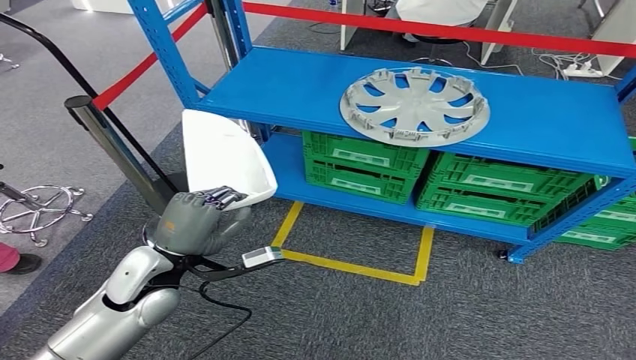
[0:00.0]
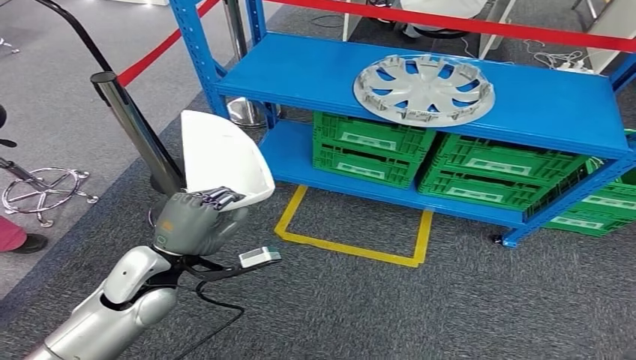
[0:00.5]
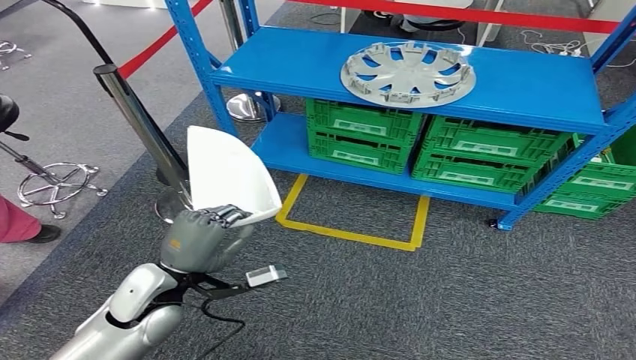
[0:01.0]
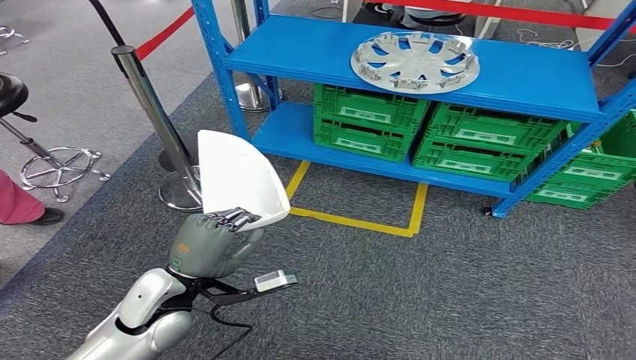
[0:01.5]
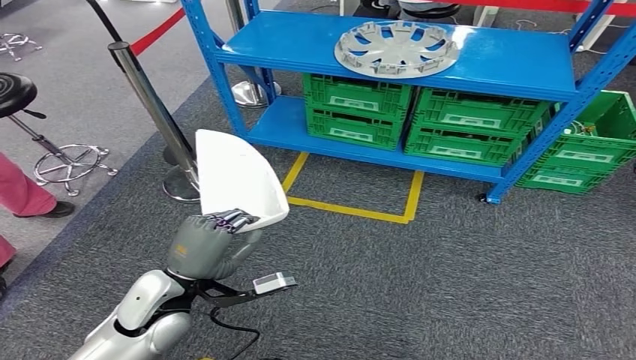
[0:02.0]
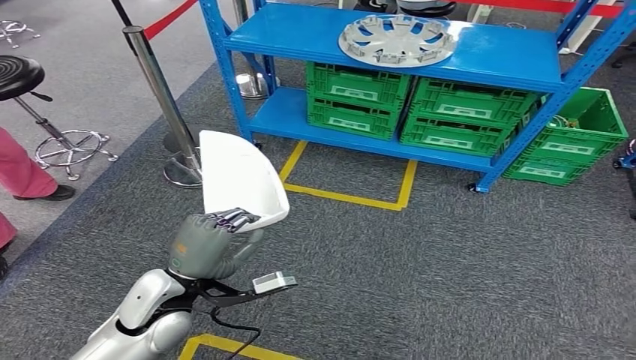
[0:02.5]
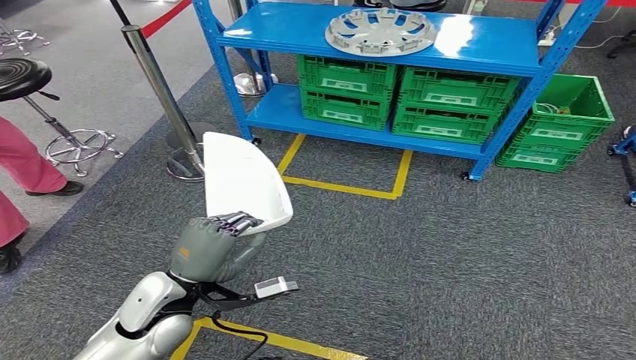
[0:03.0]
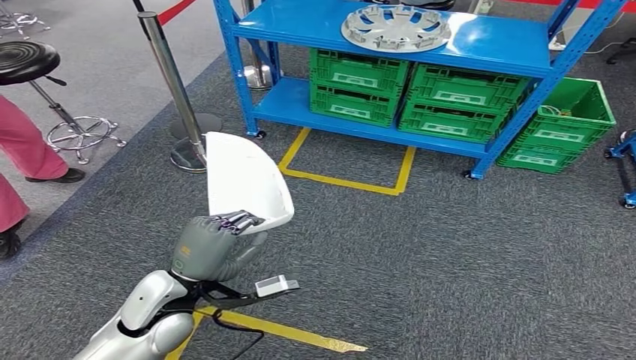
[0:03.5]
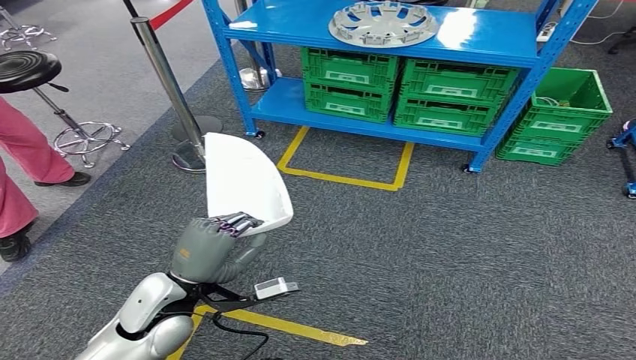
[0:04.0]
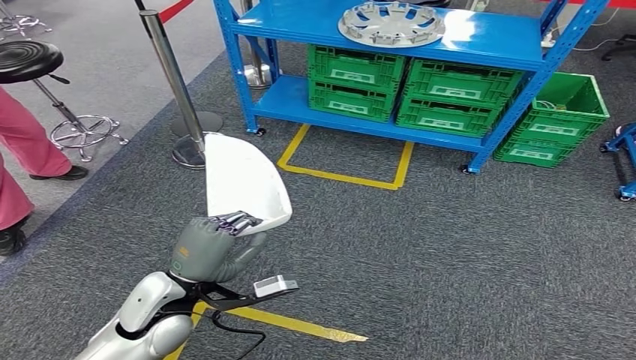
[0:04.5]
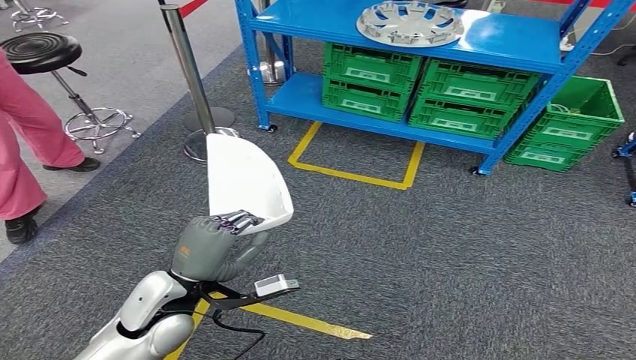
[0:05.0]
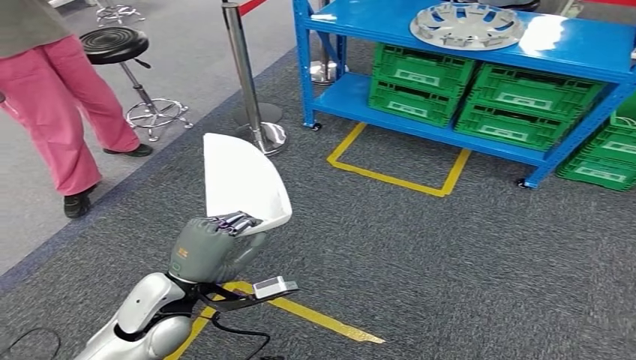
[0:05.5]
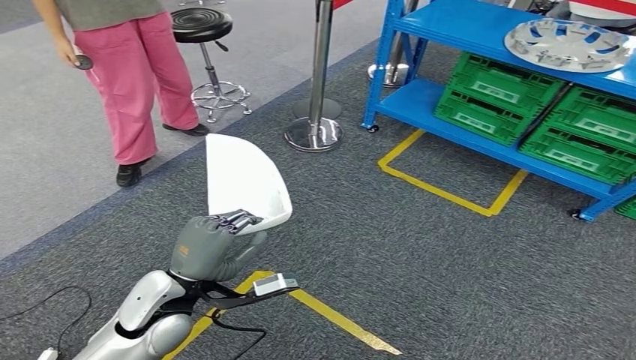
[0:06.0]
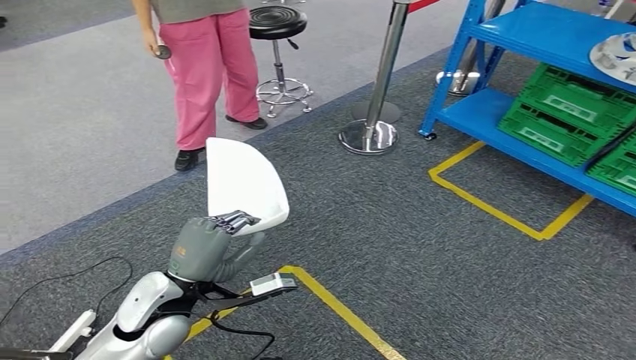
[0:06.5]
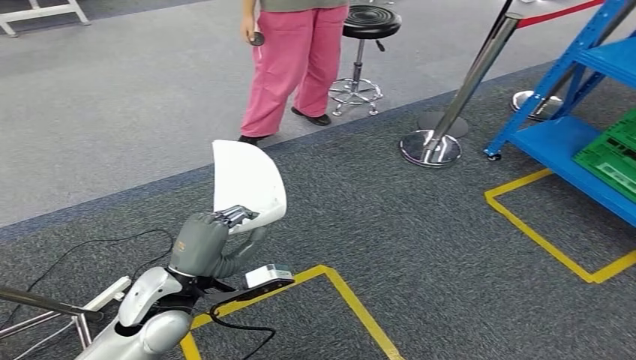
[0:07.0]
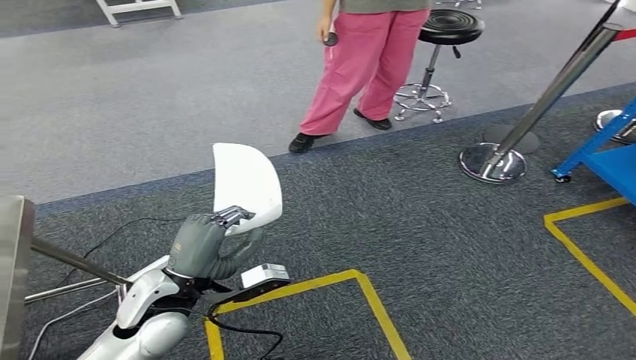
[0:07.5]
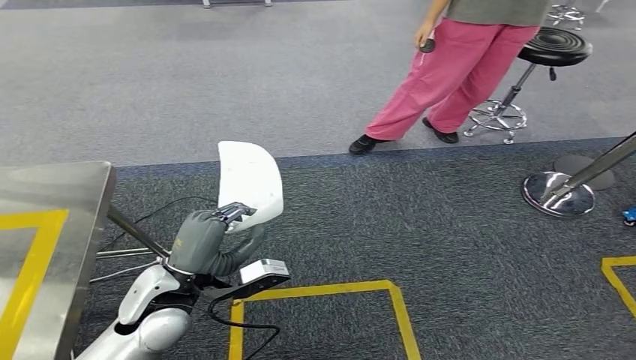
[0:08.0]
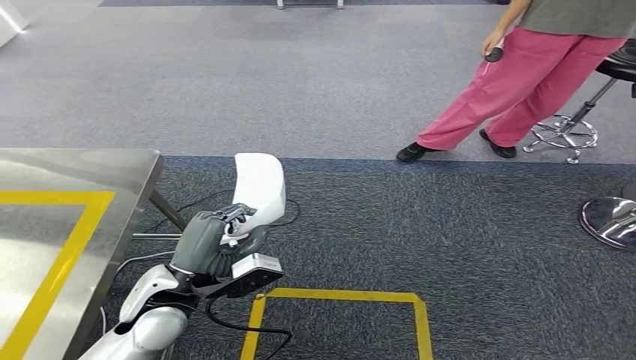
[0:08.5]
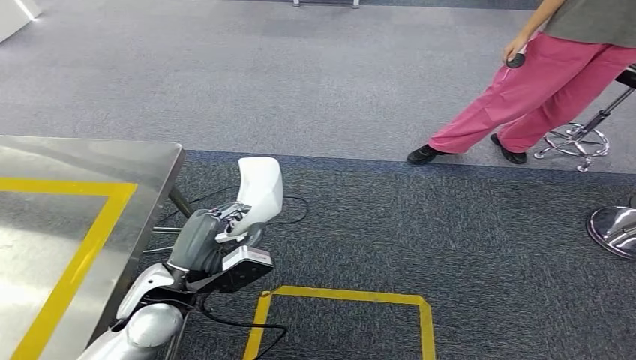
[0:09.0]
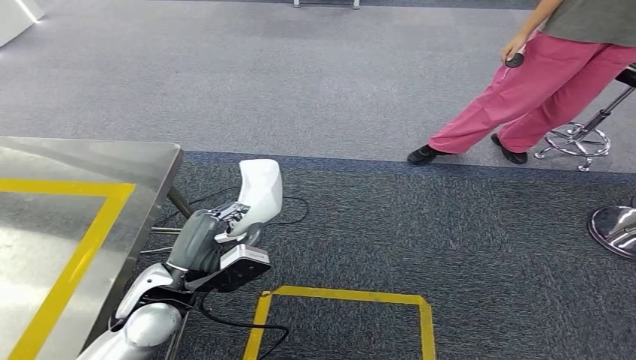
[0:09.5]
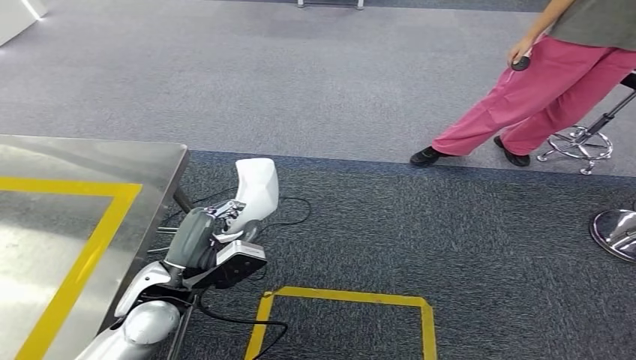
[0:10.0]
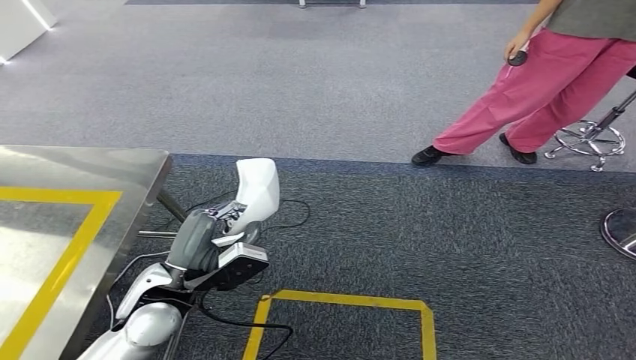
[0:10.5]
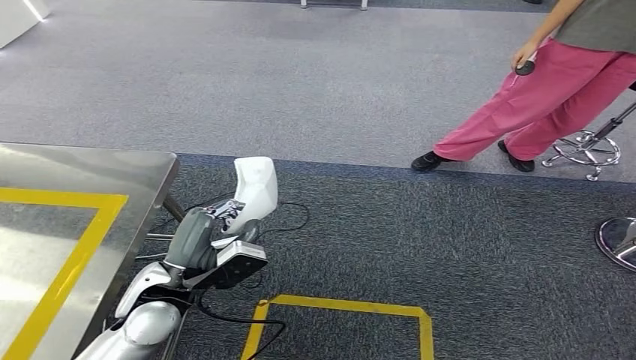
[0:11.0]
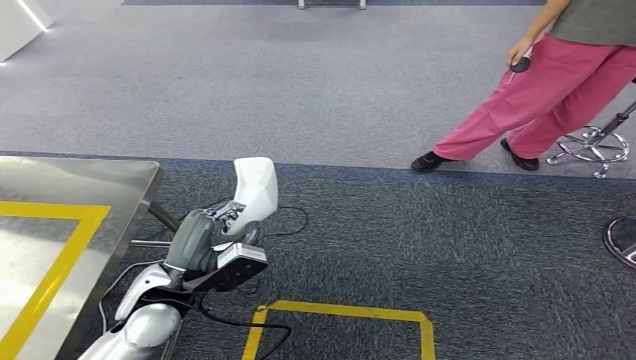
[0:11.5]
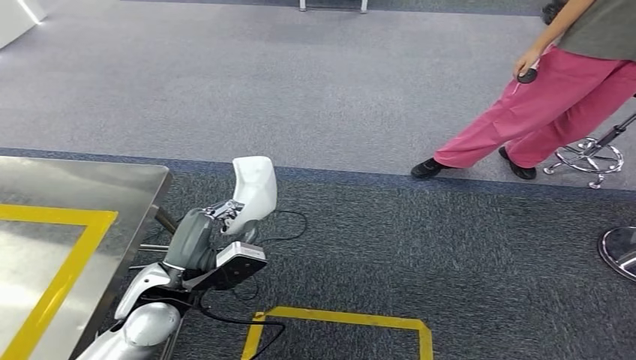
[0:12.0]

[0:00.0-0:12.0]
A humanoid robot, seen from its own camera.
0:10.0 to 0:12.0: Both hands stay about where they are.

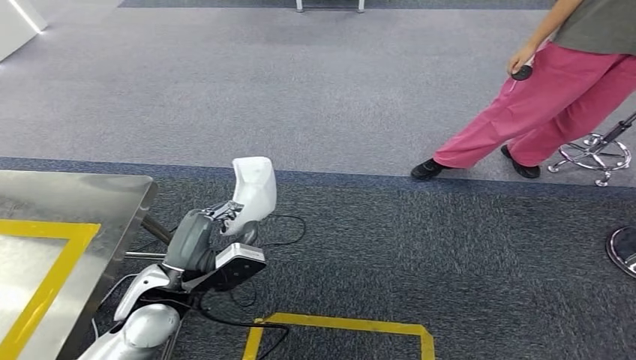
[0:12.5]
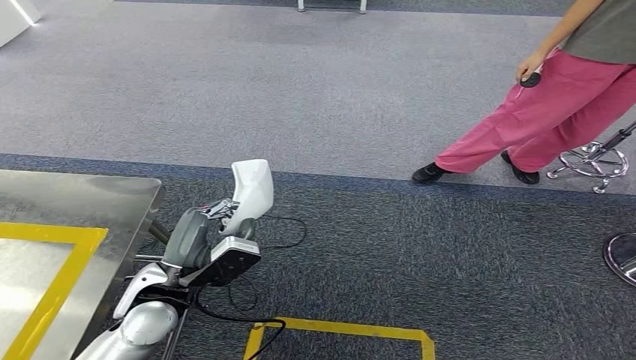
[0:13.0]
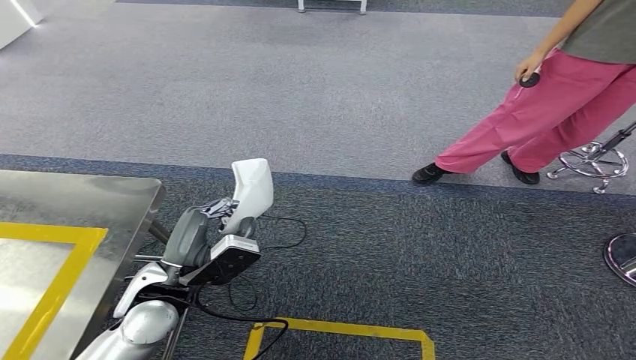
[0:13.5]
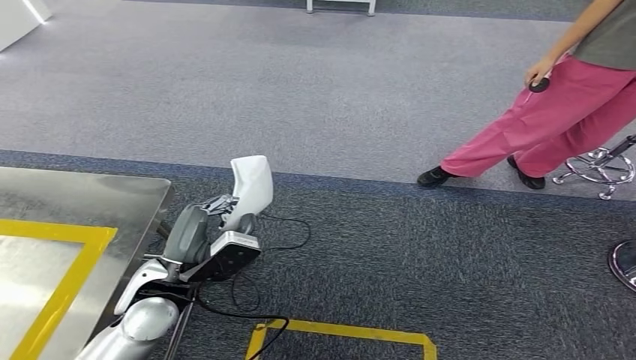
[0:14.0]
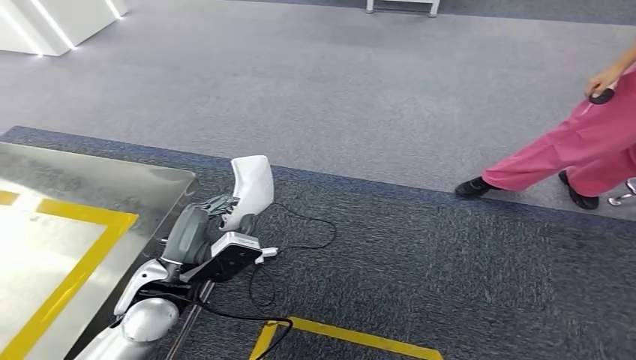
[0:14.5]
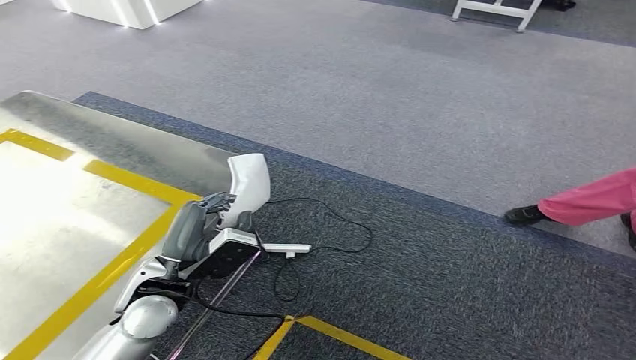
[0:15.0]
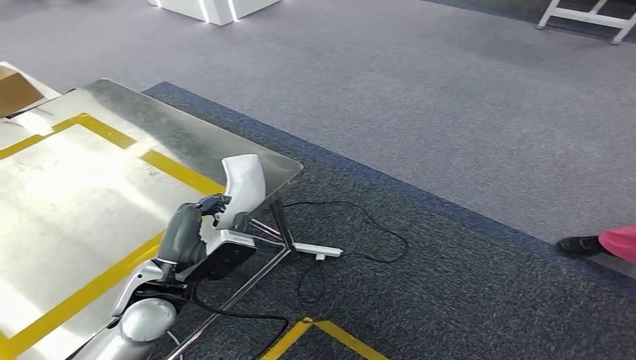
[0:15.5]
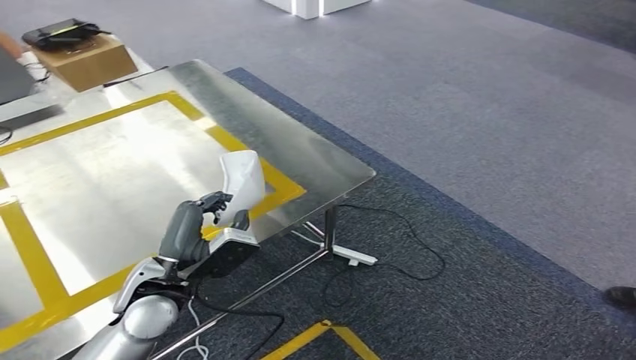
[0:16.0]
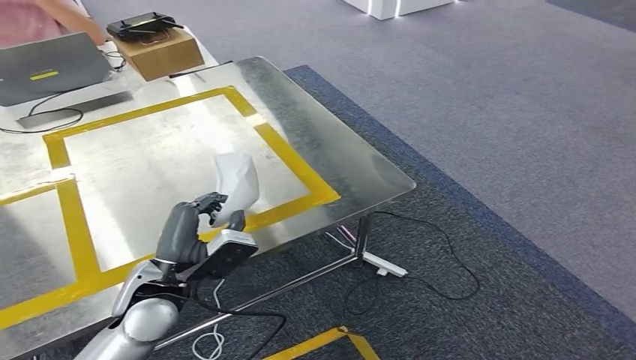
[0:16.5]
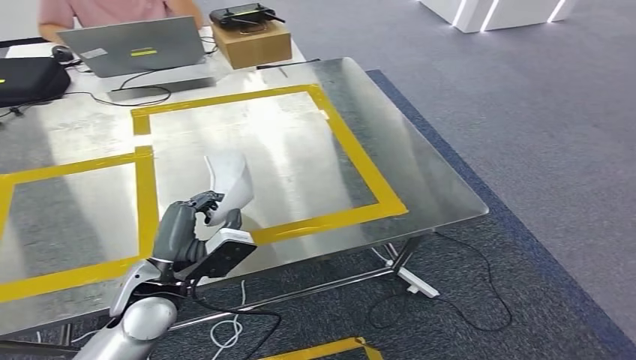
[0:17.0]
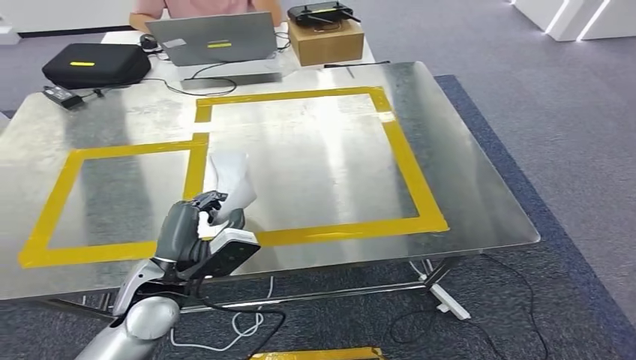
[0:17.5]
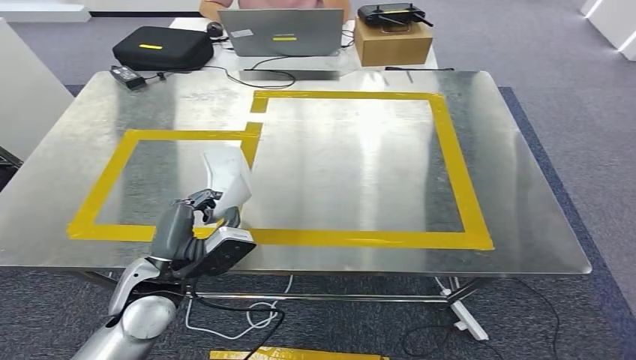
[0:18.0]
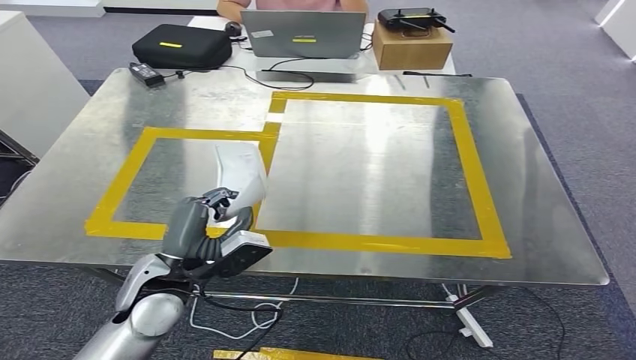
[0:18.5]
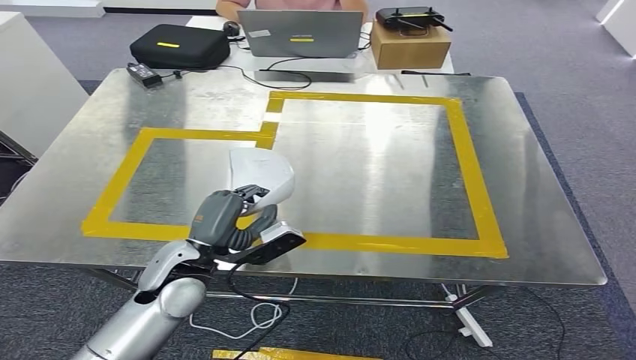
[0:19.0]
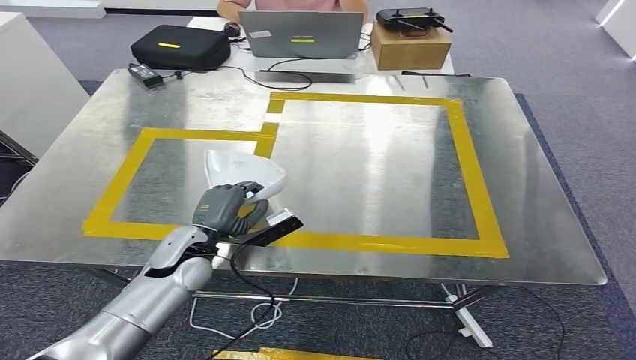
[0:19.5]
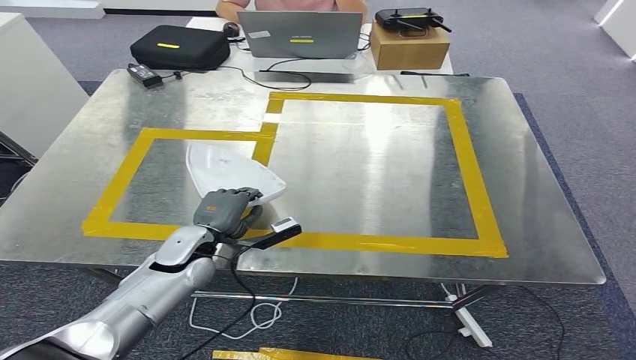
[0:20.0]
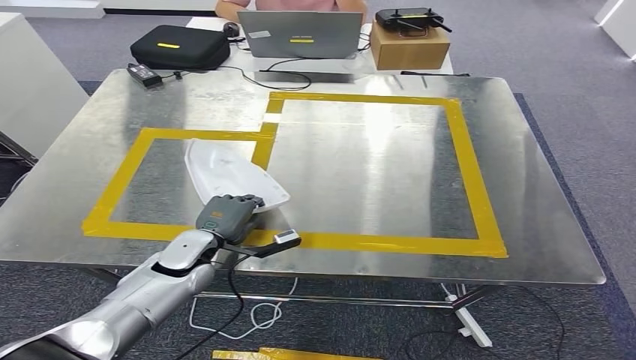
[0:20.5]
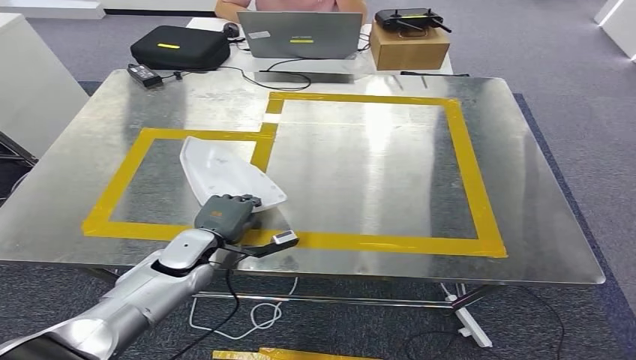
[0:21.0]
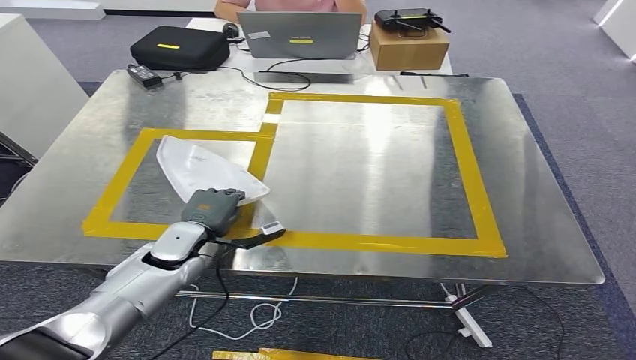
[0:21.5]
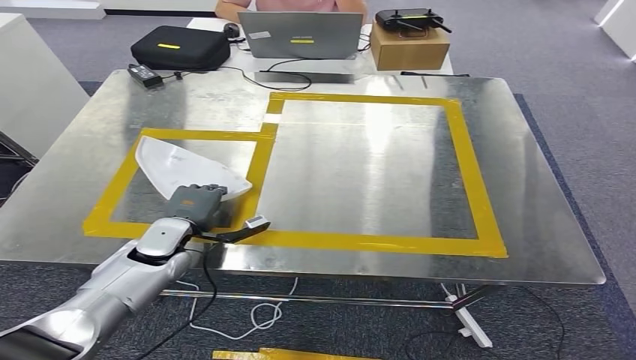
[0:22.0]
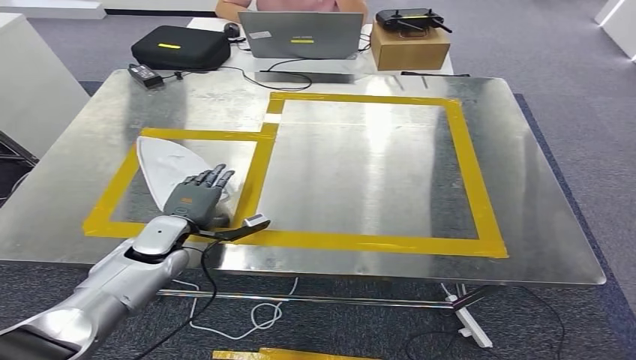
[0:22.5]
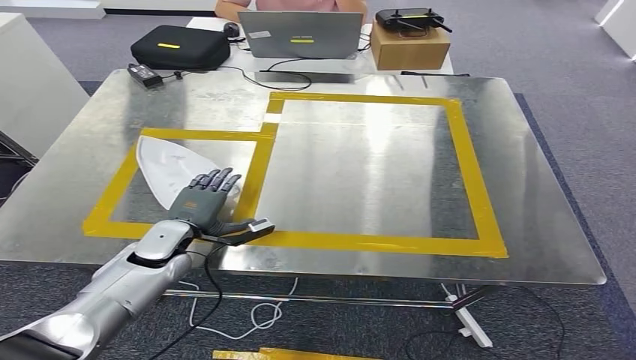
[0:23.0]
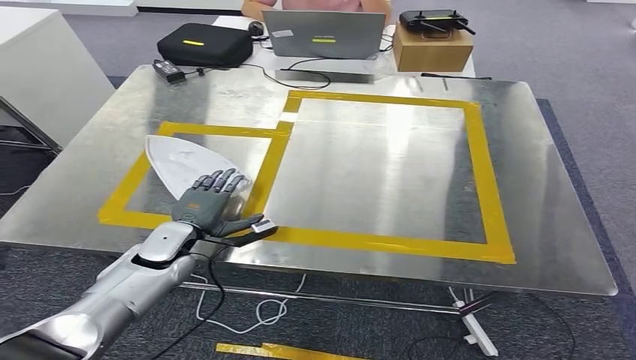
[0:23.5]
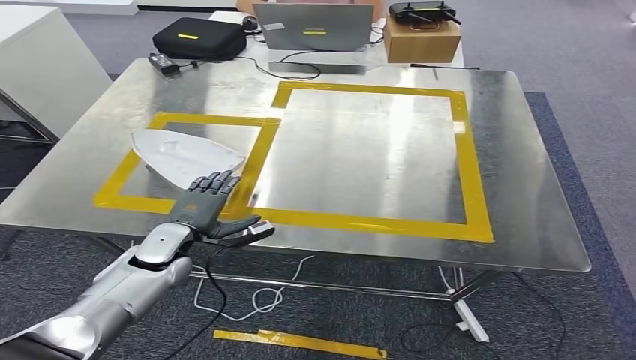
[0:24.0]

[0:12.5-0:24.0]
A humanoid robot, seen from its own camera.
Step, 0:12.5 to 0:22.0: Move the small component to the workbench.
0:18.5 to 0:20.0: The left hand travels forward and downward by approximately 10 cm.
